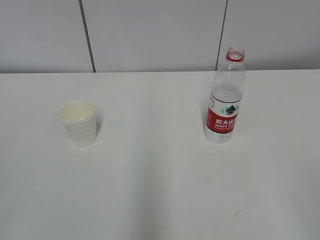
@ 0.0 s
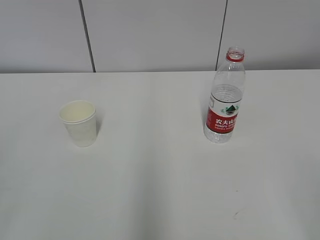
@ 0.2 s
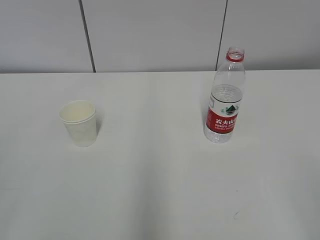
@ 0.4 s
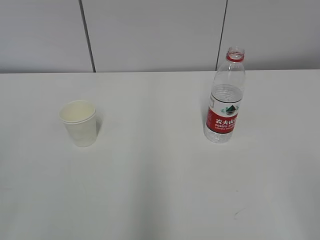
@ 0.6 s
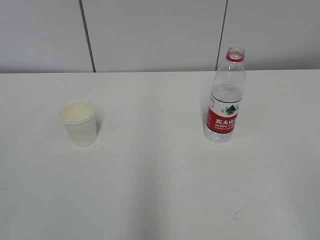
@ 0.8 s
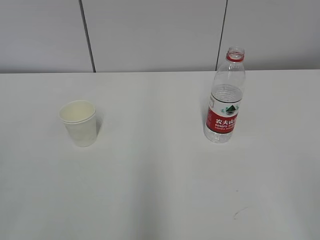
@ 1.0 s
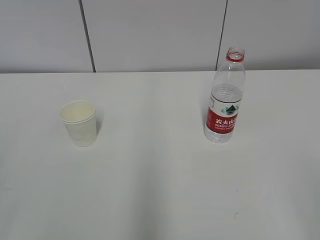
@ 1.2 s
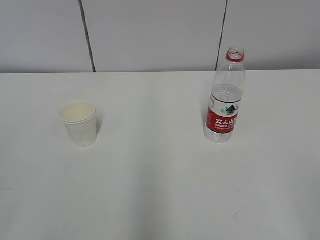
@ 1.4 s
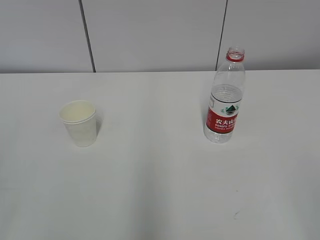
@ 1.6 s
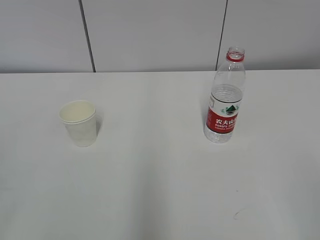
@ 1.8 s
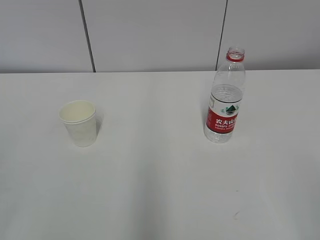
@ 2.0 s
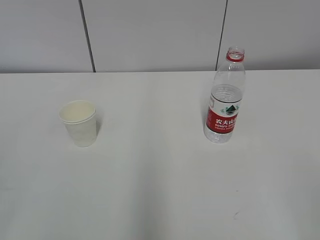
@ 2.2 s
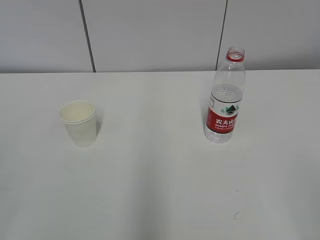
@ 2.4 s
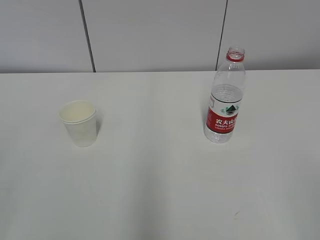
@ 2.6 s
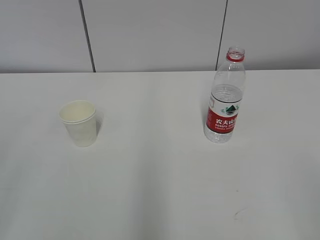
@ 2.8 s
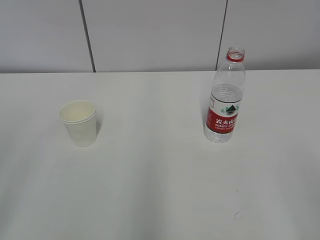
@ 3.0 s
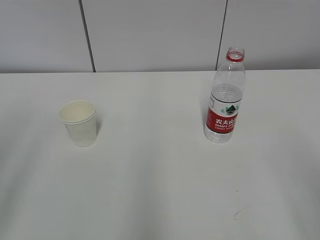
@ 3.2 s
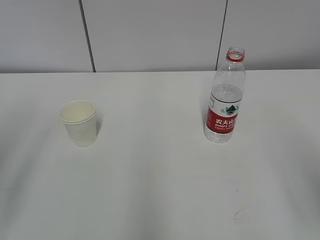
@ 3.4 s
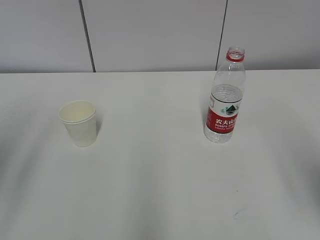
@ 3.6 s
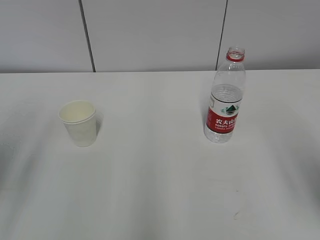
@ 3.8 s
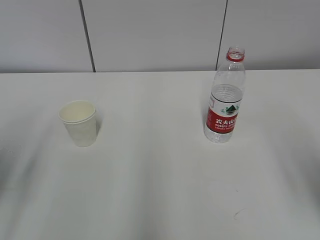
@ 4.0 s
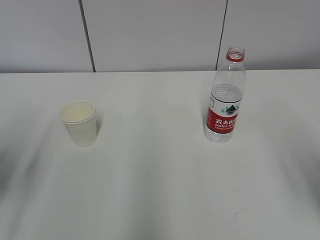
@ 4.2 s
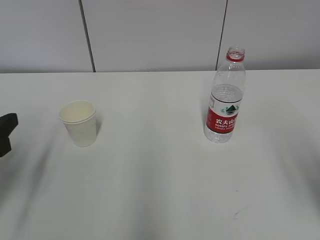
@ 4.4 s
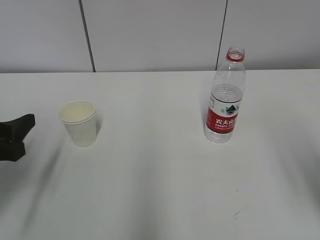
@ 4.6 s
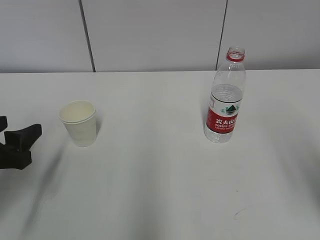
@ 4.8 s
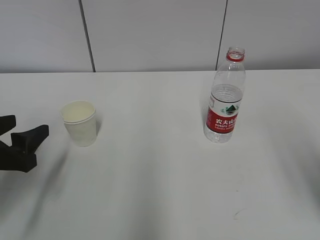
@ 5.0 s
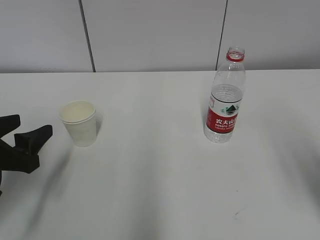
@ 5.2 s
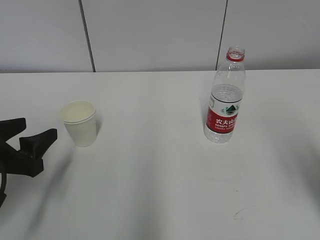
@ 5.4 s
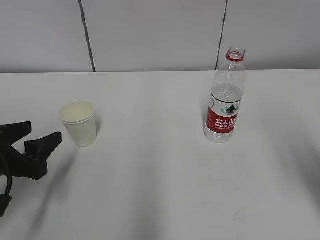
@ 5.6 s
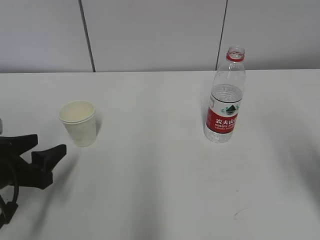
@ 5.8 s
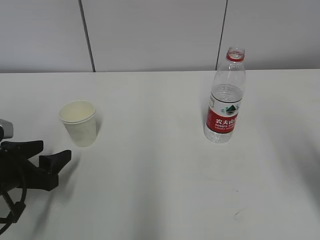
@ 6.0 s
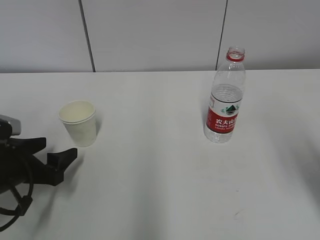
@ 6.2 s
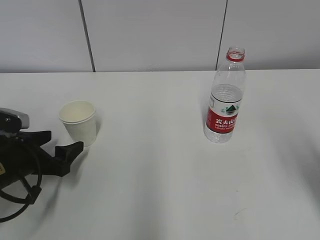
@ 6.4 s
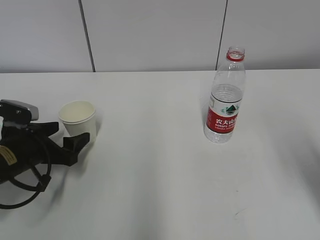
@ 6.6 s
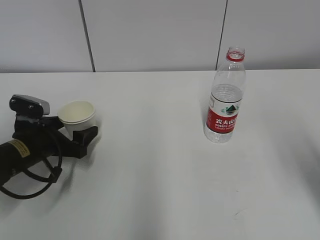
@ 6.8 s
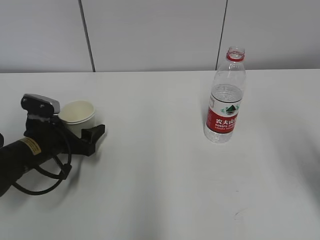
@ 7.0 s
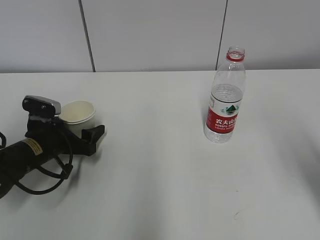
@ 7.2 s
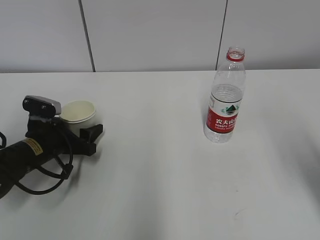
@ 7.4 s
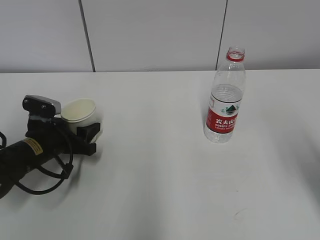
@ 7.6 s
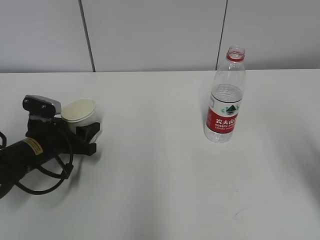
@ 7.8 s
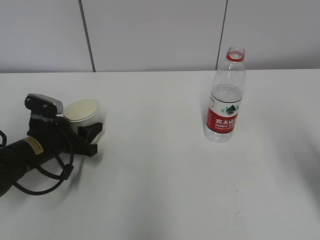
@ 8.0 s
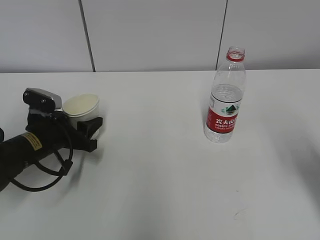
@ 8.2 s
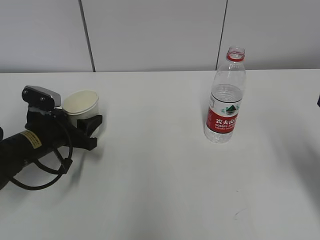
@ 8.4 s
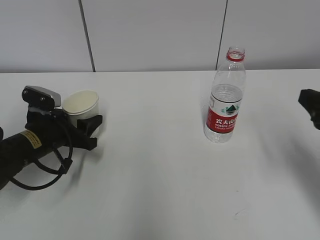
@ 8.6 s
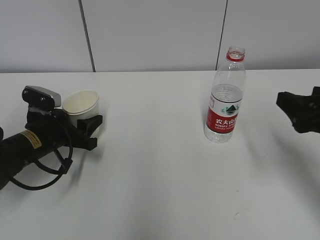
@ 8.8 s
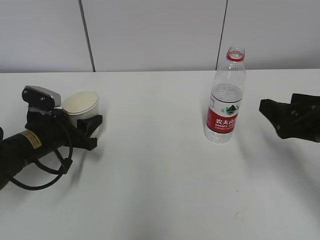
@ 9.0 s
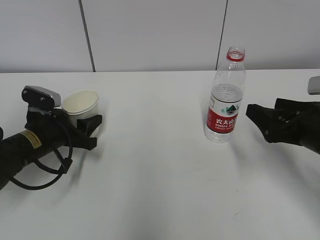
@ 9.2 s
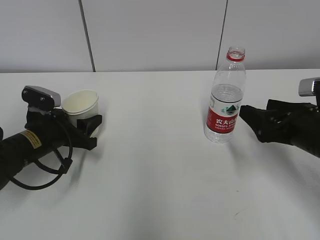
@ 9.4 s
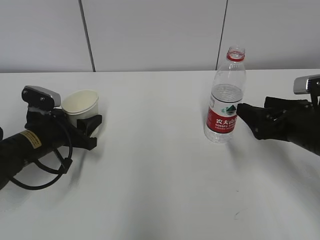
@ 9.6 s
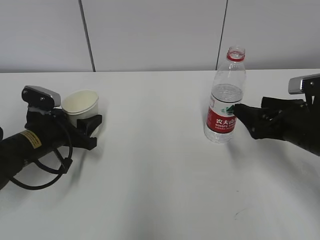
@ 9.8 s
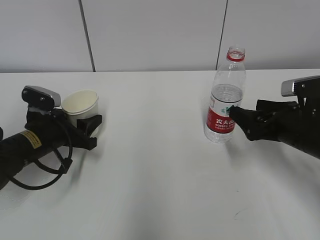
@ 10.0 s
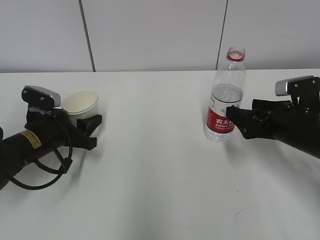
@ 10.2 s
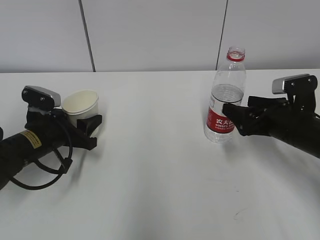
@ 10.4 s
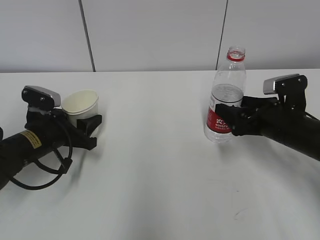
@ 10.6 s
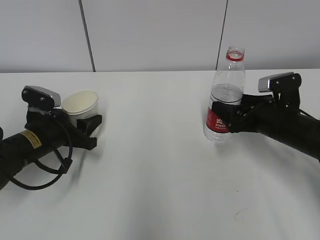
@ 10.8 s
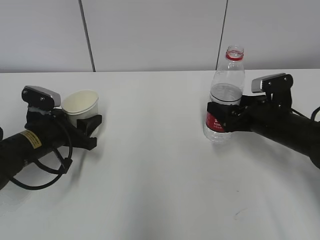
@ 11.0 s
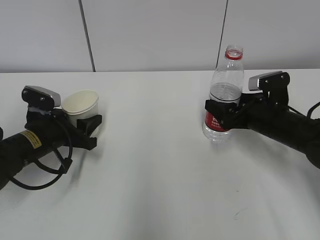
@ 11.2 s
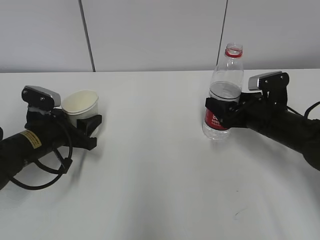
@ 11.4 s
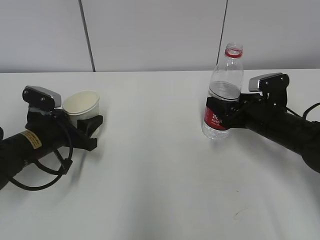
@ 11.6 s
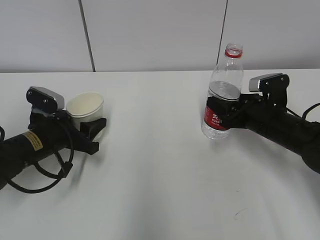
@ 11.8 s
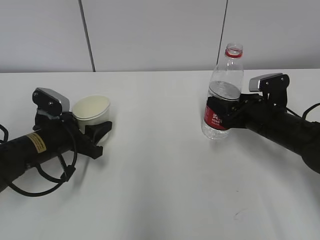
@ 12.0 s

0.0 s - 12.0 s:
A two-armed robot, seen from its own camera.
Step, 0.0 s - 6.4 s: Grab the paper cup with the left hand.
Step, 6.6 s - 10.0 s: Grab the water bottle with the right hand.
3.0 s - 4.4 s: The right gripper travels forward by approximately 10 cm. Meanwhile the left gripper goes some 20 cm forward and downward.
4.4 s - 6.0 s: The left gripper goes roughly 10 cm downward.
6.0 s - 7.6 s: The left gripper shifts about 10 cm forward.
7.6 s - 9.0 s: The right gripper moves downward and forward, roughly 10 cm.
9.0 s - 10.4 s: The right gripper travels forward and downward by some 10 cm.
10.4 s - 12.0 s: The right gripper moves roughly 5 cm, and closes up.

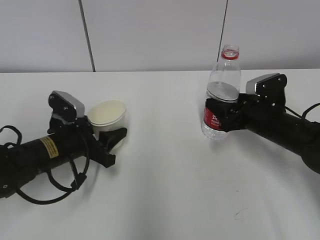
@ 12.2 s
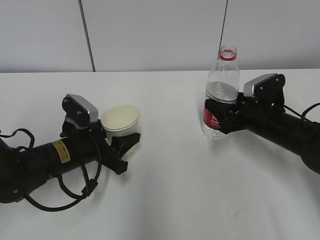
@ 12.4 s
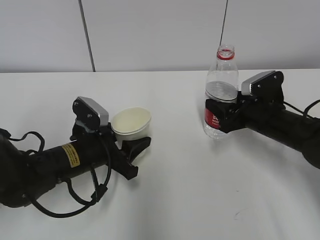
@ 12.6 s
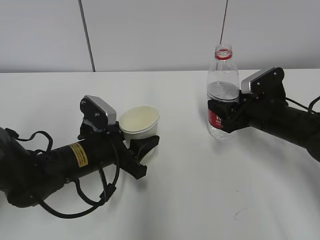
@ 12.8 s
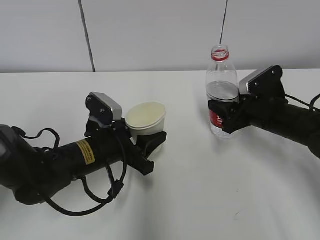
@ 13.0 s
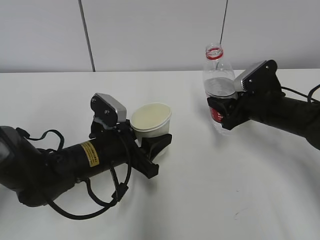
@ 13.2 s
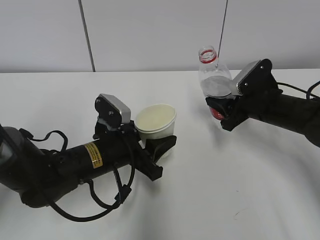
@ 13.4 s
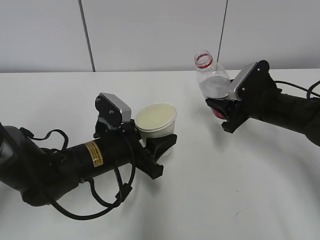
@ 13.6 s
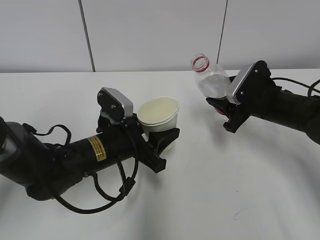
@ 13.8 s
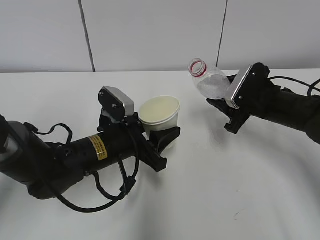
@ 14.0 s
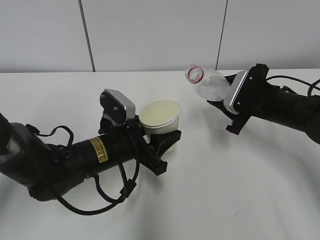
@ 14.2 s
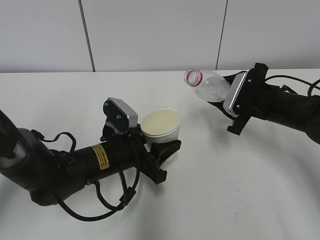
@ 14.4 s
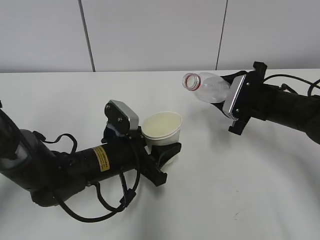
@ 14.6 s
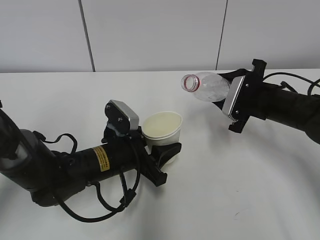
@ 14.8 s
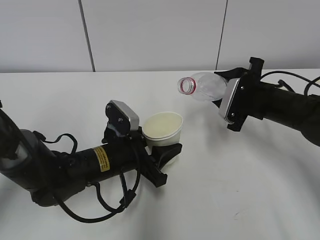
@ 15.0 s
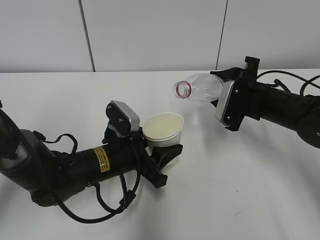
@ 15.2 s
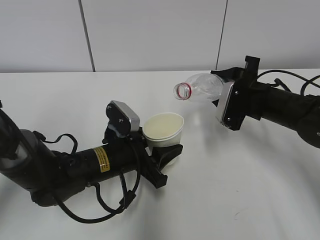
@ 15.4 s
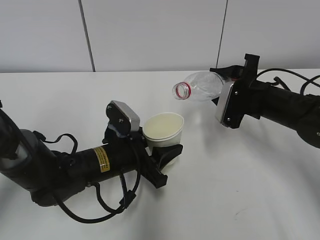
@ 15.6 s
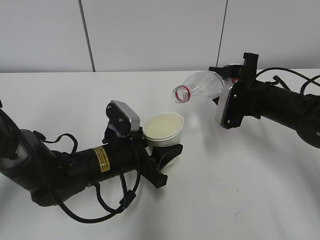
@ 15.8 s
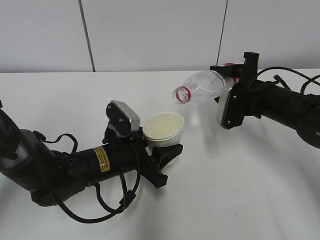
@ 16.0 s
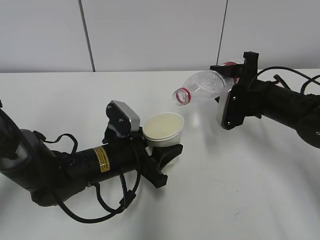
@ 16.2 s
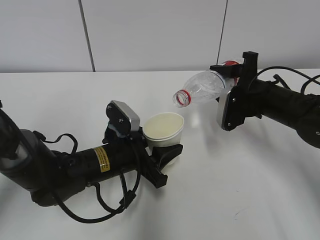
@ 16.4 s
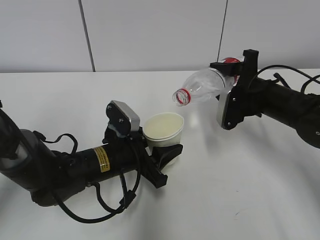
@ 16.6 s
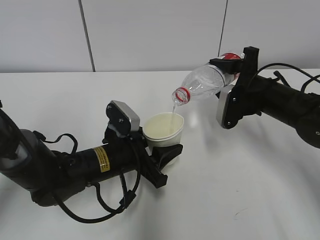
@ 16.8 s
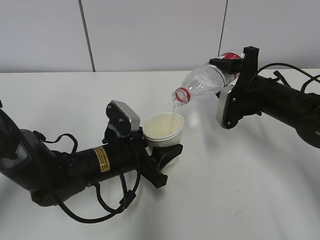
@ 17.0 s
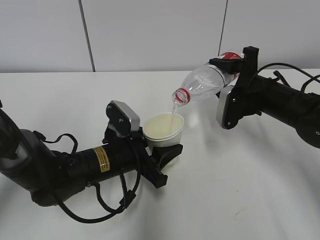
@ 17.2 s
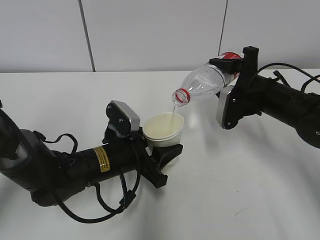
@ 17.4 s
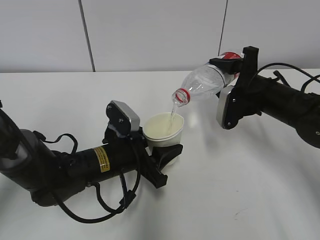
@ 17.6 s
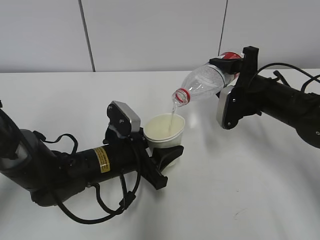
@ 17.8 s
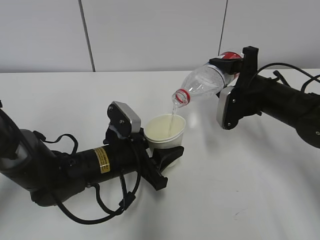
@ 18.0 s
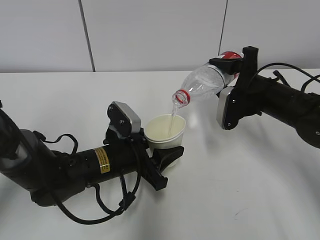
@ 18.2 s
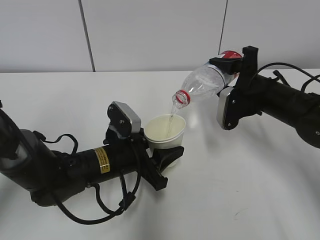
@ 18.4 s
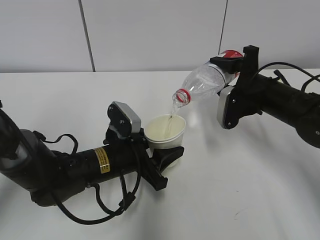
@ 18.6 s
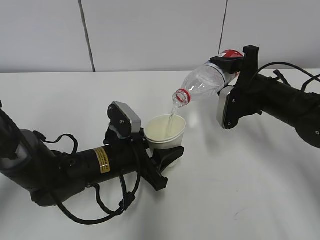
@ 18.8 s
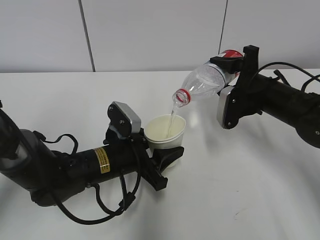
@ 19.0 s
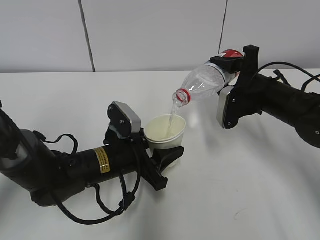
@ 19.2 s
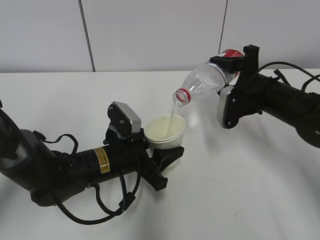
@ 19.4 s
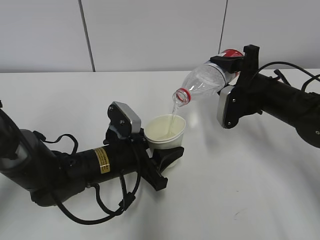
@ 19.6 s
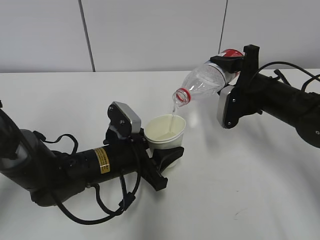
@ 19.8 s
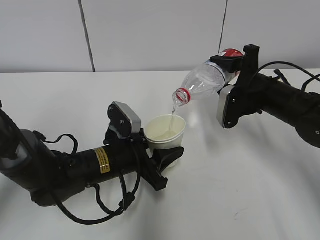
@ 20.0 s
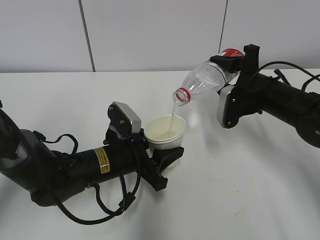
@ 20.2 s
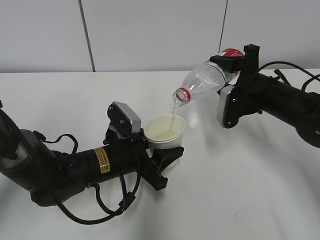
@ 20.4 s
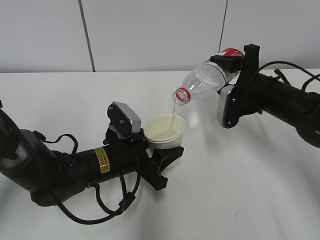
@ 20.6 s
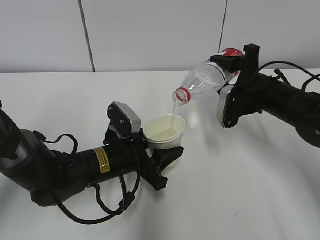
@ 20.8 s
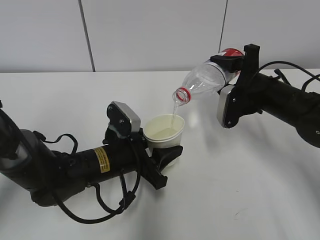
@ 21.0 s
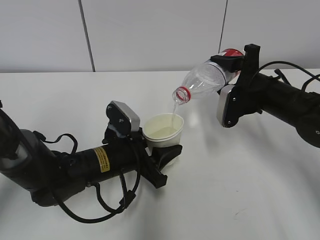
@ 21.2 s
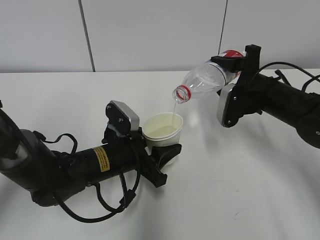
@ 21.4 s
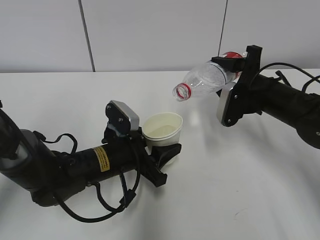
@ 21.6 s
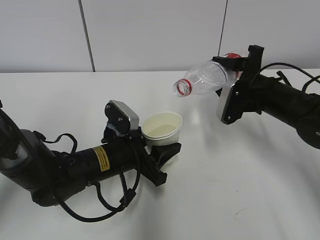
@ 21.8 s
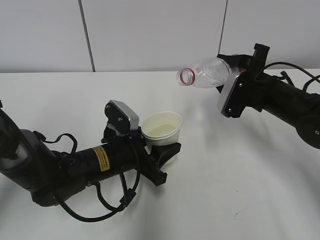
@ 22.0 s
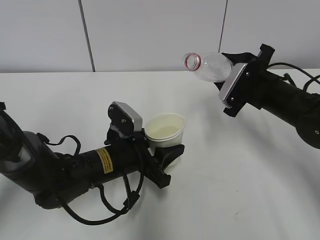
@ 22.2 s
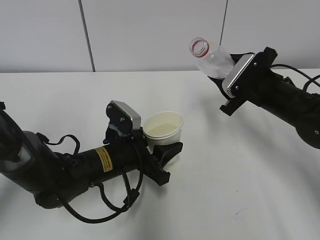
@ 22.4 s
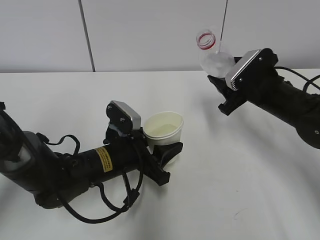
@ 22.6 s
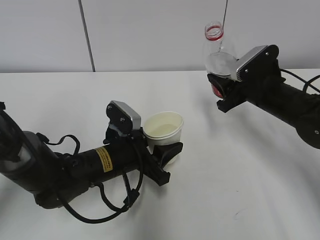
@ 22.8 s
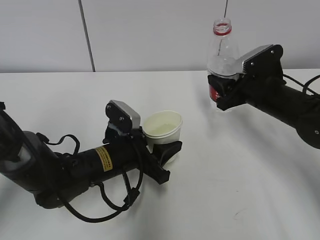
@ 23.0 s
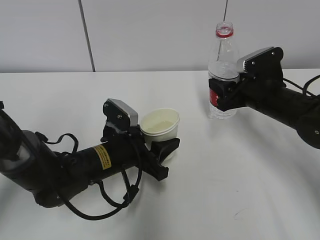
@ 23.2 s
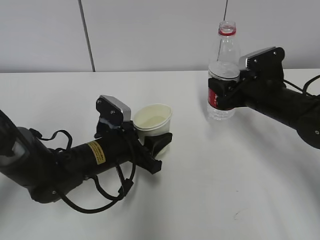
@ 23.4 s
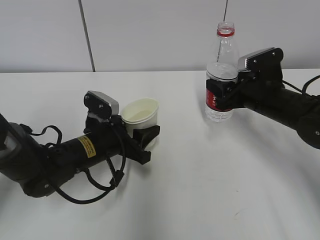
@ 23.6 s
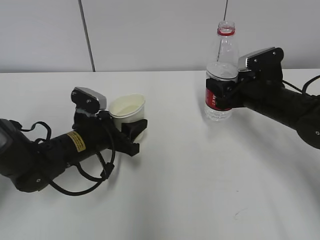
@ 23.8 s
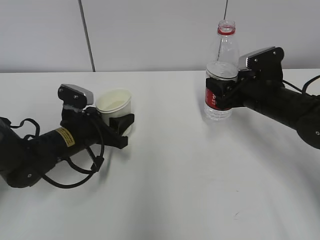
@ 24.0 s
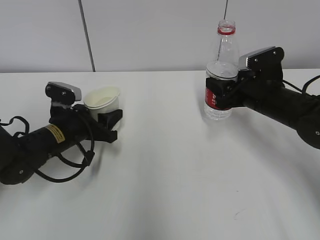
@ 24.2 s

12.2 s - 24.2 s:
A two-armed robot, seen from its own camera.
Step, 14.0 s - 17.8 s: Fill water with the left hand.
Step, 14.0 s - 17.8 s: Pour water with the right hand.
Step, 18.0 s - 19.0 s: Collect water with the right hand.
Step, 19.2 s - 21.8 s: Place the paper cup with the left hand.
Step, 22.0 s - 23.6 s: Place the water bottle with the right hand.
12.2 s - 13.8 s: The left gripper travels to the right by approximately 10 cm.
15.2 s - 16.6 s: The grippers stay close to where they were, moving slightly.
16.6 s - 18.2 s: The grippers move only a little.
18.2 s - 21.2 s: The two grippers keep their place.
22.6 s - 24.2 s: The left gripper shifts approximately 10 cm to the left and forward.
